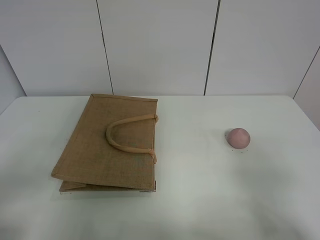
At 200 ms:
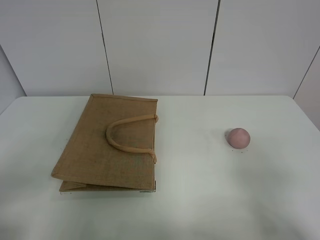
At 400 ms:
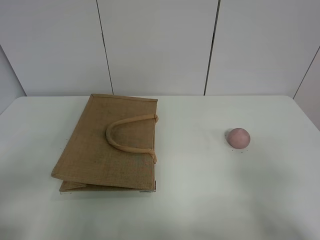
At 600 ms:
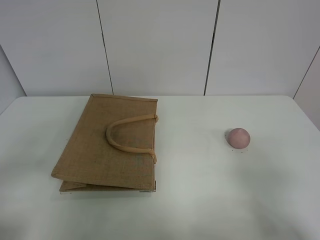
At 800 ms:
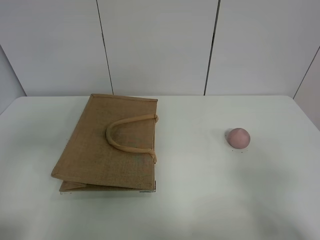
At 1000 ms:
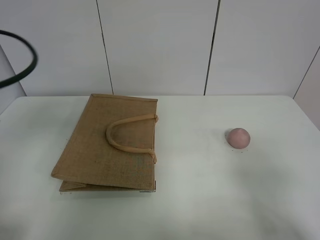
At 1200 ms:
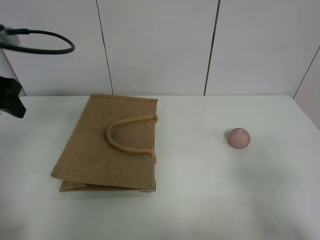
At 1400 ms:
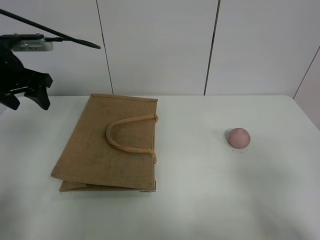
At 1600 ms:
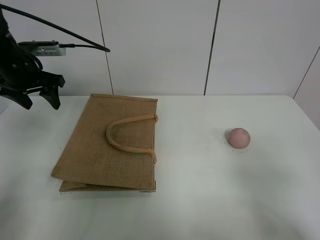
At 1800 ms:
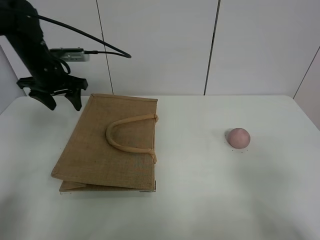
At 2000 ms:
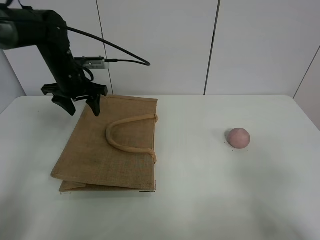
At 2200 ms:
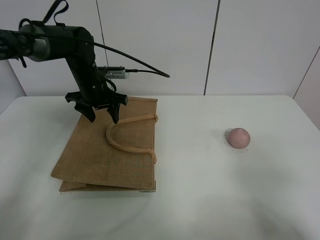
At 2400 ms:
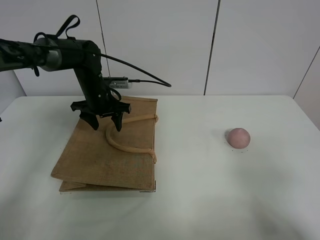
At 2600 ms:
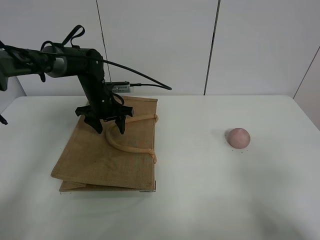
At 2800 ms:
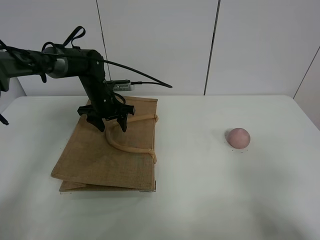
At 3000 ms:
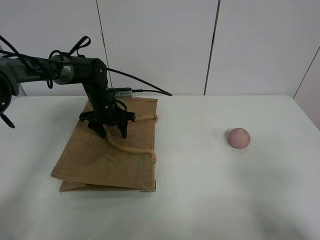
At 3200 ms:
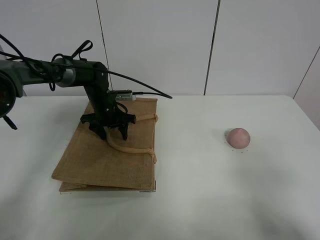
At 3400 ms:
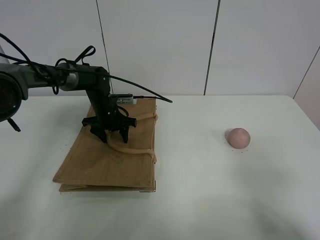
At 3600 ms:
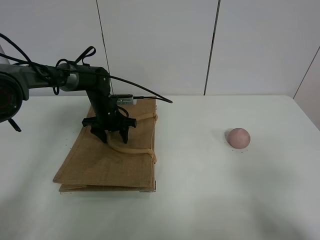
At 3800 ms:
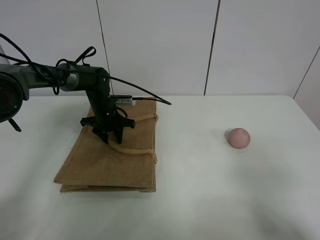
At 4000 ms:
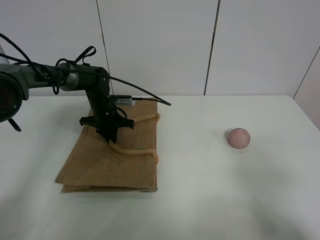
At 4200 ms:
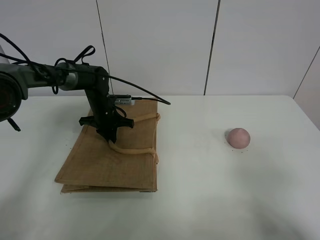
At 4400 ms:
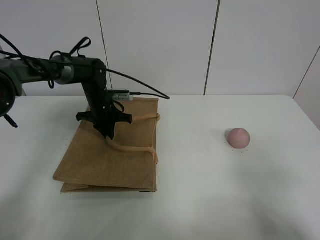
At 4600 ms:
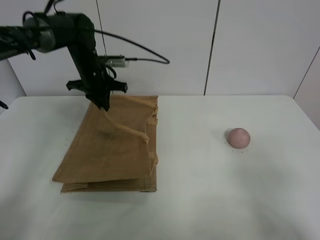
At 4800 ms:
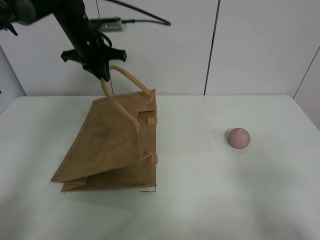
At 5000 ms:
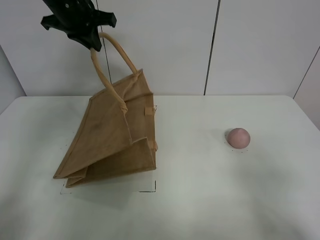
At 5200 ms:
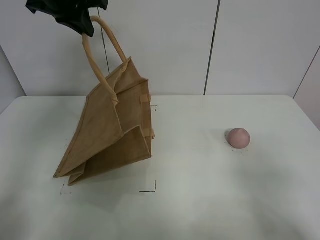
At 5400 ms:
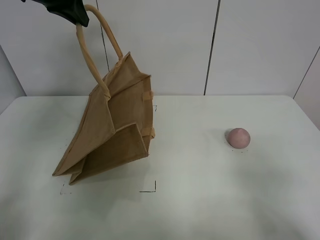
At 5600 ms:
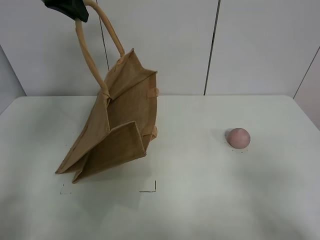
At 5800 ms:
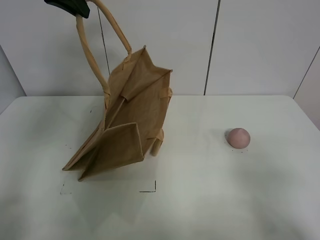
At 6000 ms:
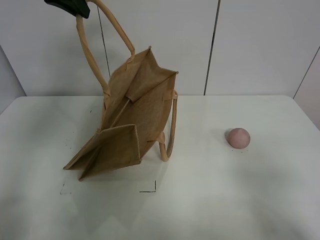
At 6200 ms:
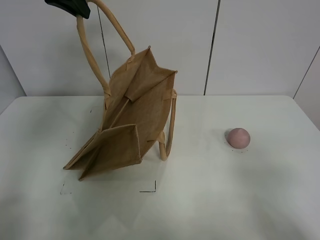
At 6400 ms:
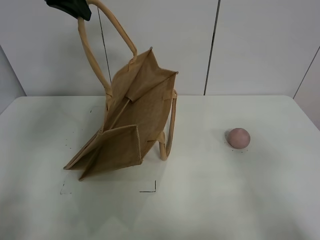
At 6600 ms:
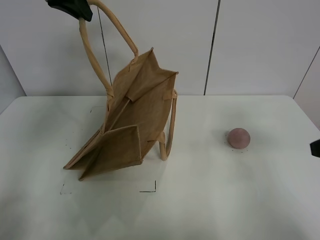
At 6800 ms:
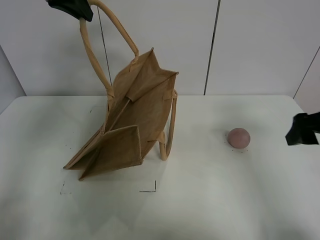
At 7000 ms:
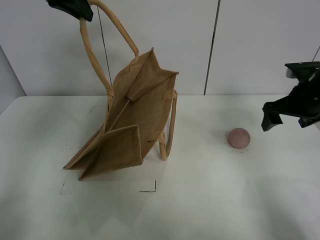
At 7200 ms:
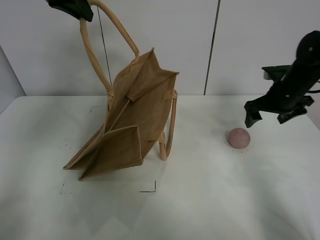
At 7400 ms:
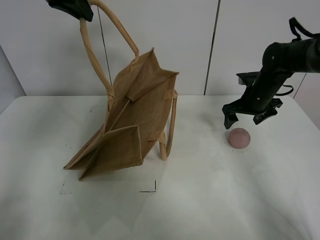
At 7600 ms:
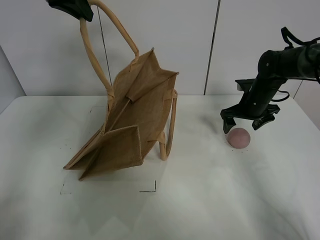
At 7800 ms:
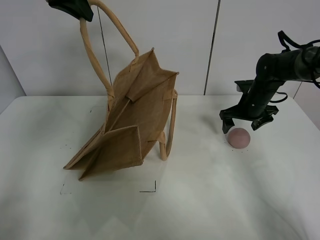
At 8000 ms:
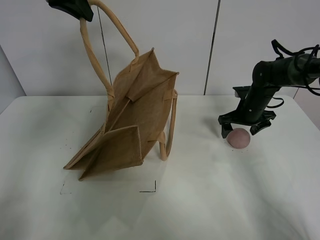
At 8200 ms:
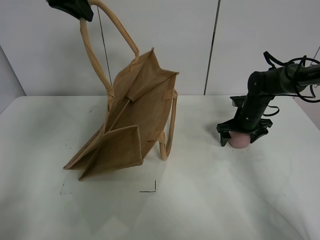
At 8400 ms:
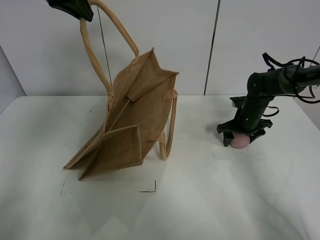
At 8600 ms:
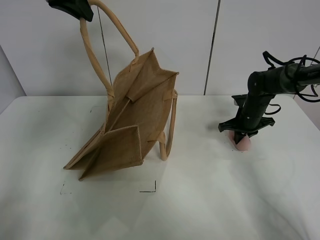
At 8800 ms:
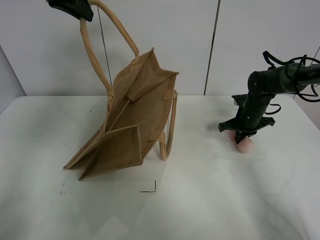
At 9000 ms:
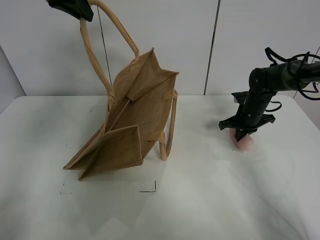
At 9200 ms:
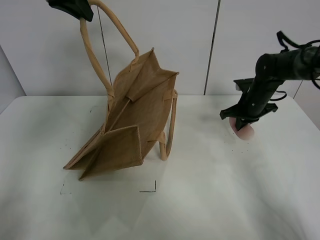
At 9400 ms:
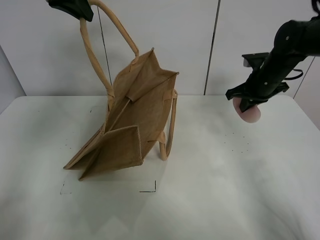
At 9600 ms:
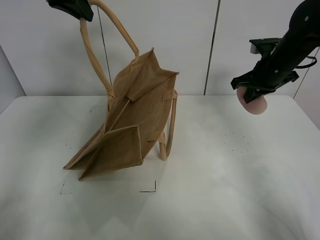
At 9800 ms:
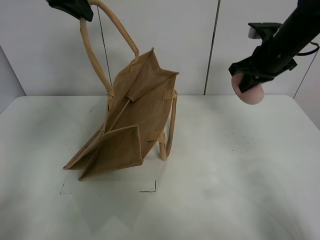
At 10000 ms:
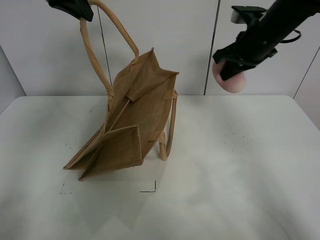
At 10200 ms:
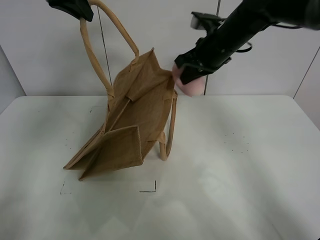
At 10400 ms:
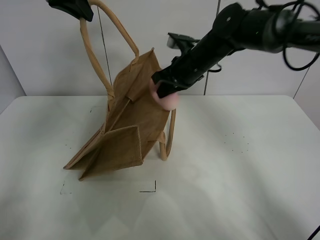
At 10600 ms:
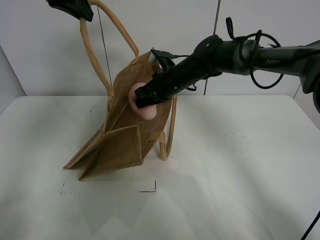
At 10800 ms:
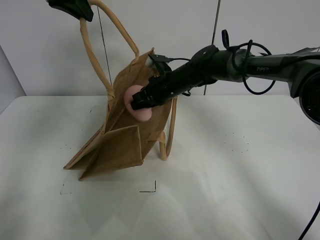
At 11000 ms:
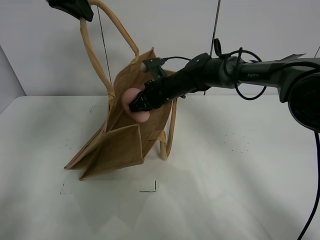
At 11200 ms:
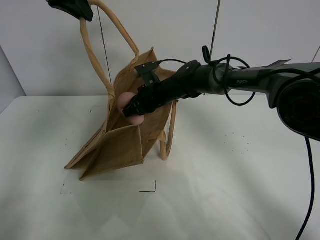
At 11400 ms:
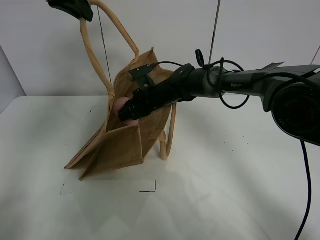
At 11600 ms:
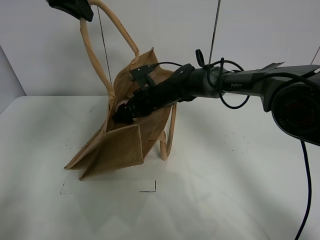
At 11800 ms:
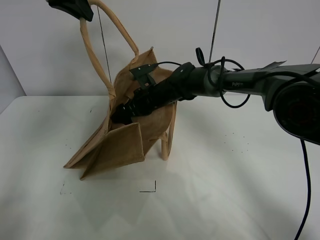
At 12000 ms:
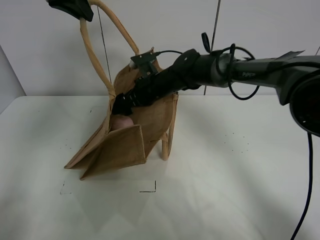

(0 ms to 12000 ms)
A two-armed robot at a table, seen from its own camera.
Task of the whole recording: open the brown linen bag and put the peach in the bag.
Step, 0 ms - 5400 ms: Lift the handbag with left gripper.
Step, 5600 ms - 8800 ms: Grasp the peach with right gripper.
0 ms - 1600 ms: The left gripper shifts roughly 40 cm forward.
1600 ms - 3000 ms: The left gripper heads downward, to the right and forward, covering roughly 20 cm.
3000 ms - 4400 ms: The left gripper closes up.
4400 ms - 6000 ms: The left gripper shifts about 30 cm upward.
6000 ms - 7600 ms: The right gripper goes roughly 40 cm forward.
7600 ms - 9000 ms: The right gripper closes up.
9000 ms - 10400 ms: The right gripper shifts about 20 cm to the left and upward.
10400 ms - 12000 ms: The right gripper travels to the left and downward by approximately 10 cm, and opens up.

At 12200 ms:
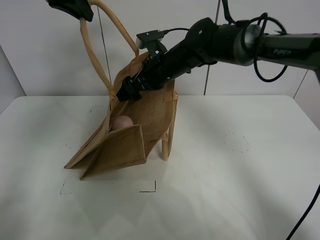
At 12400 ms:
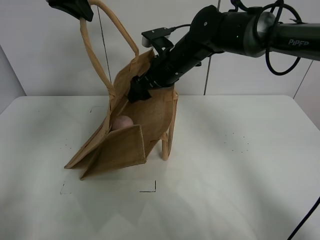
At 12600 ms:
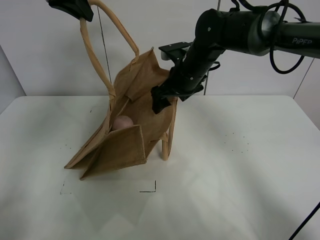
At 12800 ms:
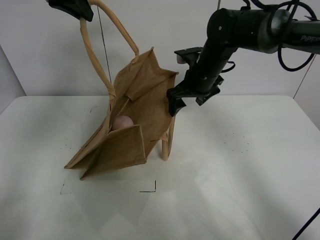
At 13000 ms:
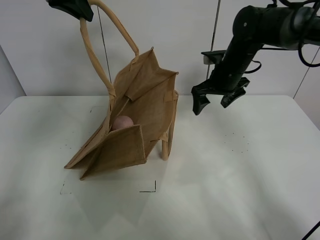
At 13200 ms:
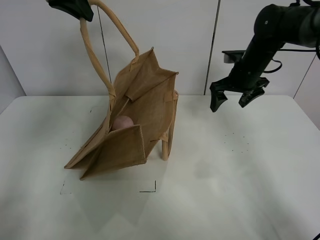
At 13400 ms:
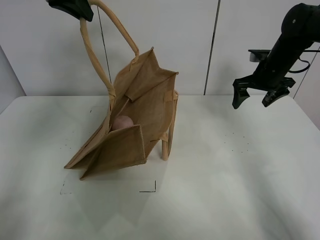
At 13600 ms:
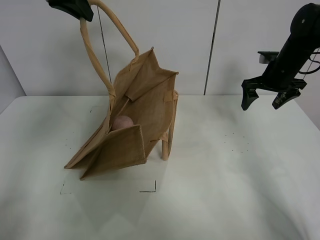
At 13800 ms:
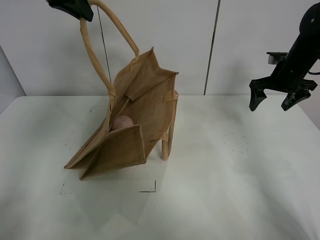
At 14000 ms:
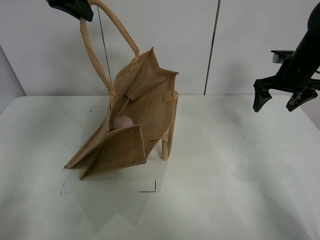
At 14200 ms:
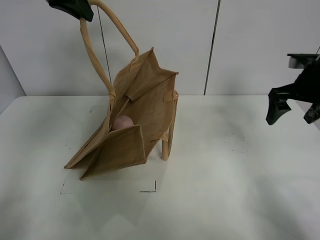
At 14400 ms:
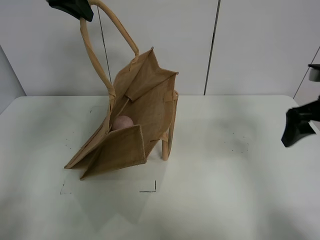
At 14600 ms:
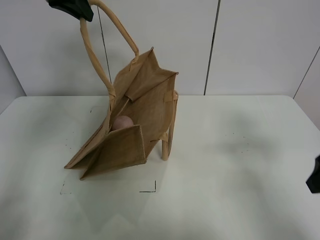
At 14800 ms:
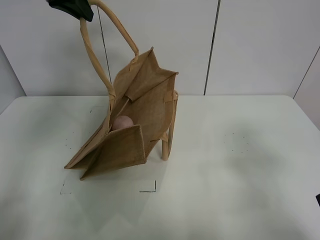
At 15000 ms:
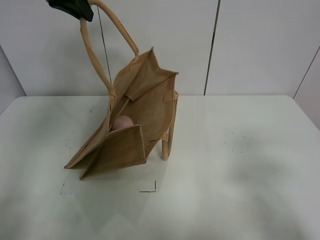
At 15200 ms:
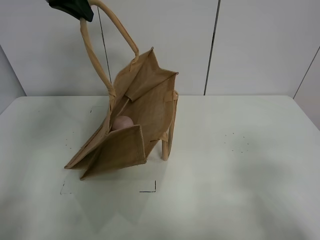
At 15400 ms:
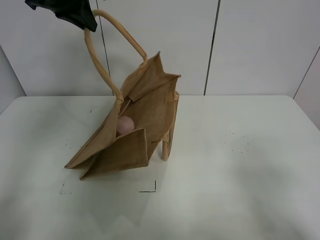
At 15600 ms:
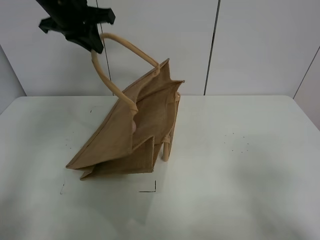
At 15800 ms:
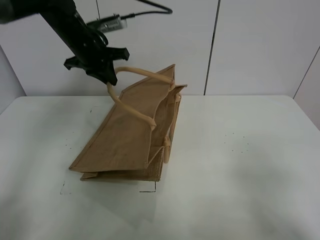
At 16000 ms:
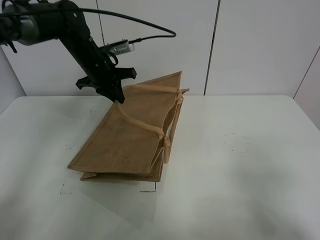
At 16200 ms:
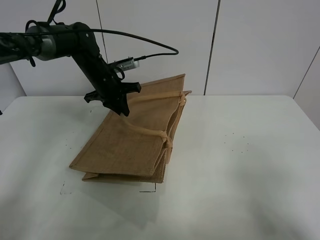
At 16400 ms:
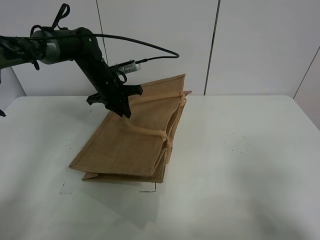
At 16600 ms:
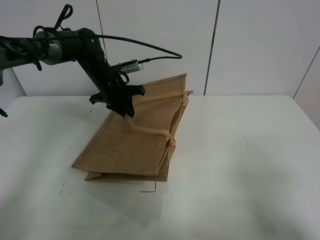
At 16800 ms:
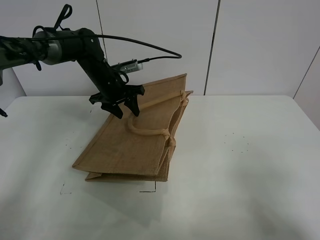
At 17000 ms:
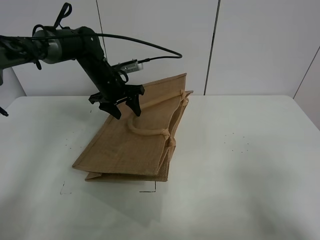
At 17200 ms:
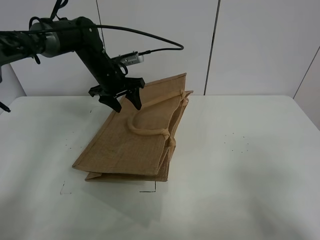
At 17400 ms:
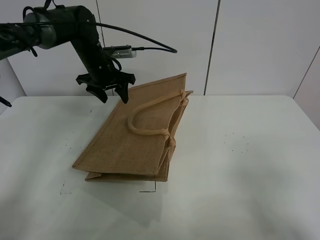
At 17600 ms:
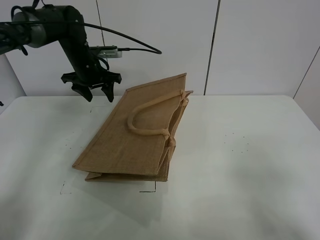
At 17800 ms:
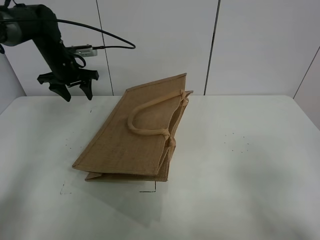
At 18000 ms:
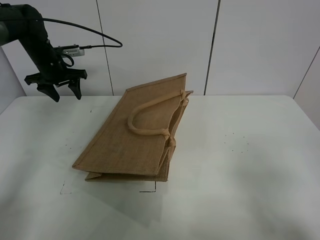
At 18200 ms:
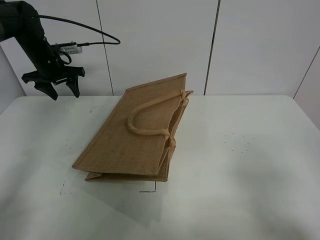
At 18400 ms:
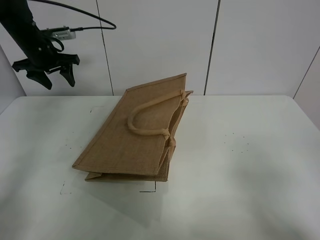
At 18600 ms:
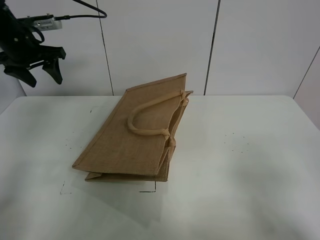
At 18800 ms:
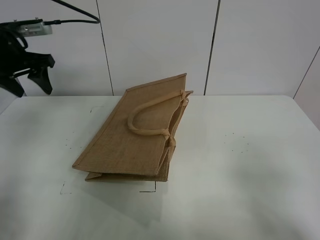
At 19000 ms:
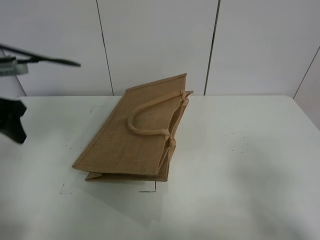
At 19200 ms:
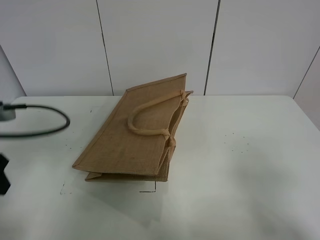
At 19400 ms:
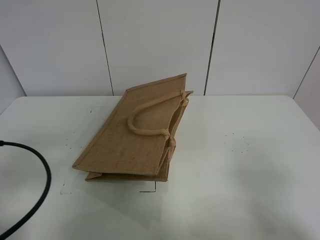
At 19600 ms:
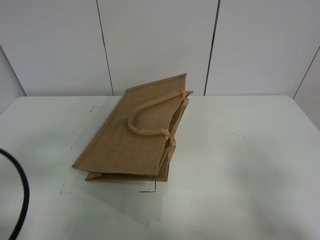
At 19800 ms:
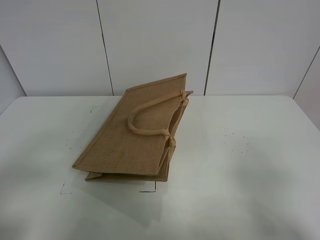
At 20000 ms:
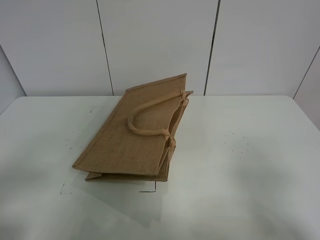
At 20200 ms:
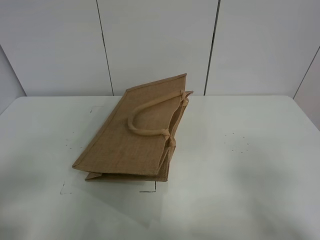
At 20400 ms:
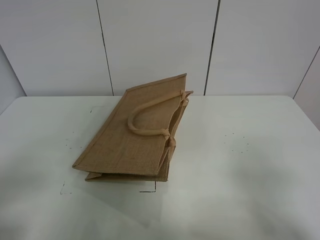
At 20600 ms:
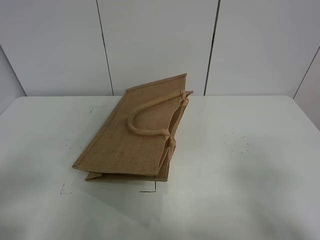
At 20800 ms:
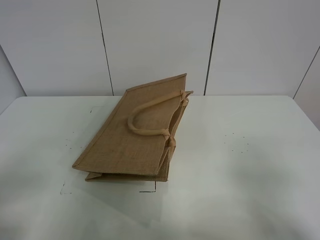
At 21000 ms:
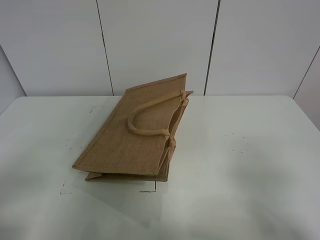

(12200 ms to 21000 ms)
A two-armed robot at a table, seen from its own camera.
Task of the whole recording: open the brown linen bag and put the peach in the bag.
Step, 13000 ms - 17600 ms: Put down the handbag with left grippe.
12200 ms - 13600 ms: The right gripper heads to the right, covering about 25 cm.
13600 ms - 15200 ms: The right gripper heads backward, covering roughly 40 cm.
15200 ms - 16600 ms: The left gripper is displaced downward by about 25 cm.
16600 ms - 18000 ms: The left gripper travels to the left by about 15 cm, and opens.
18000 ms - 19600 ms: The left gripper moves backward, about 40 cm.
19600 ms - 21000 ms: The left gripper shifts about 5 cm backward.
